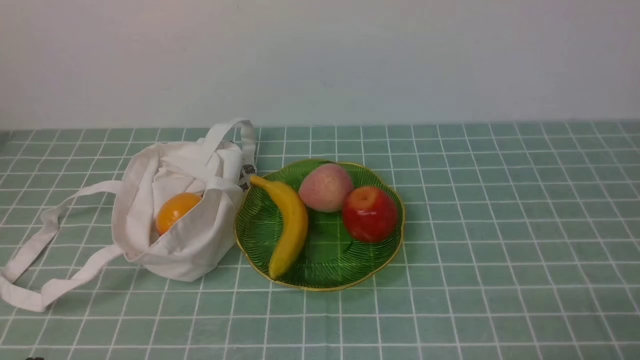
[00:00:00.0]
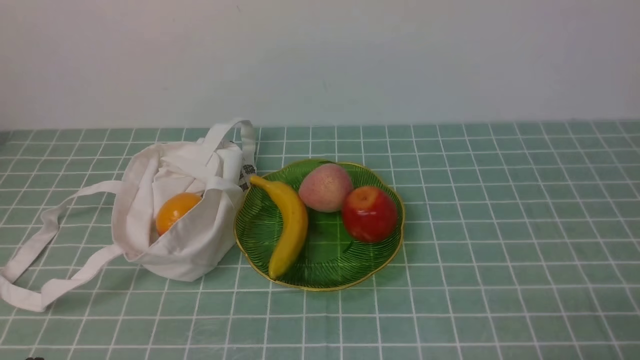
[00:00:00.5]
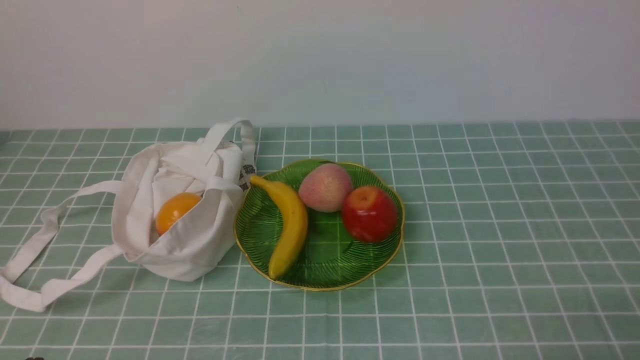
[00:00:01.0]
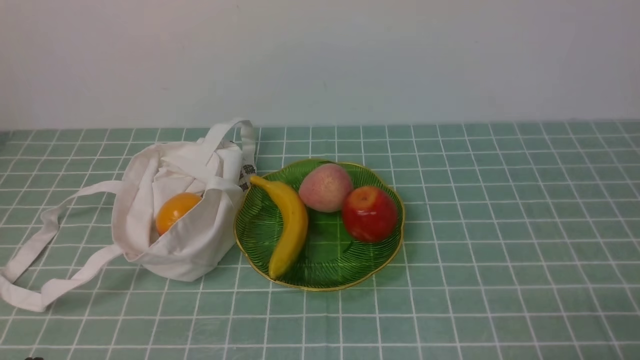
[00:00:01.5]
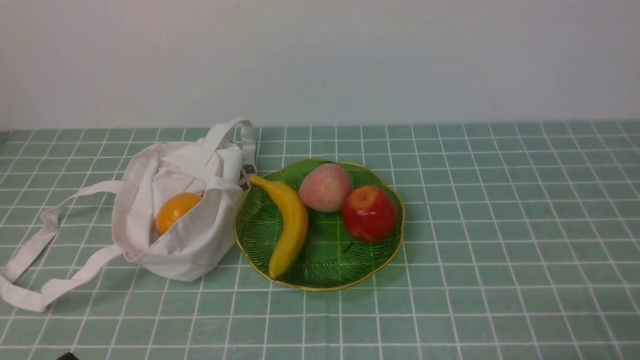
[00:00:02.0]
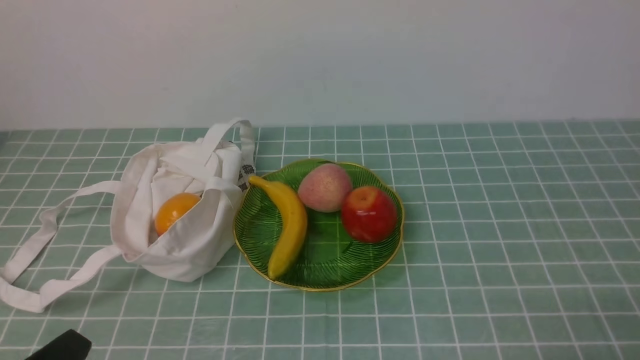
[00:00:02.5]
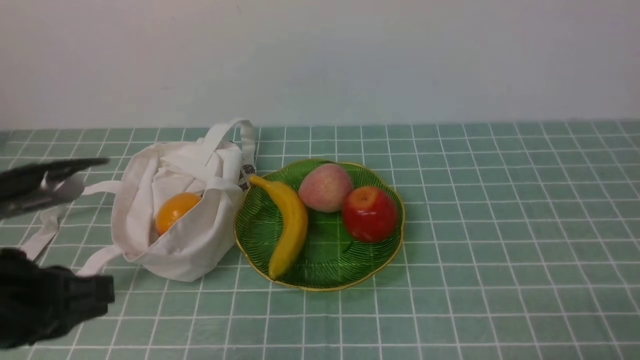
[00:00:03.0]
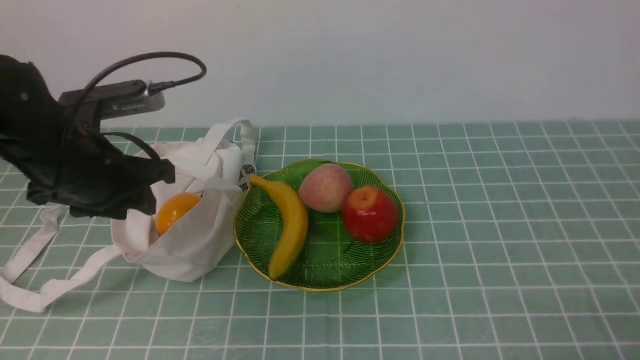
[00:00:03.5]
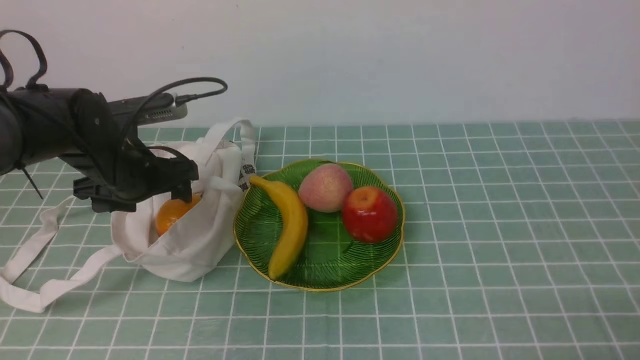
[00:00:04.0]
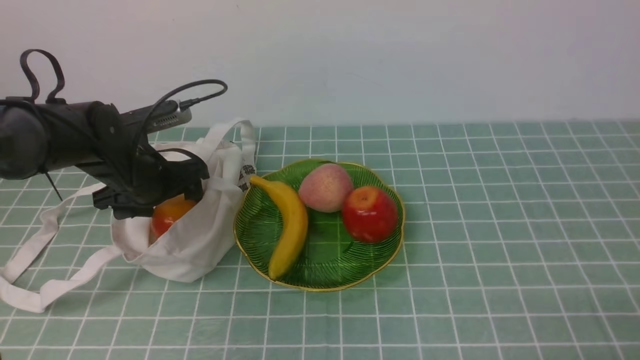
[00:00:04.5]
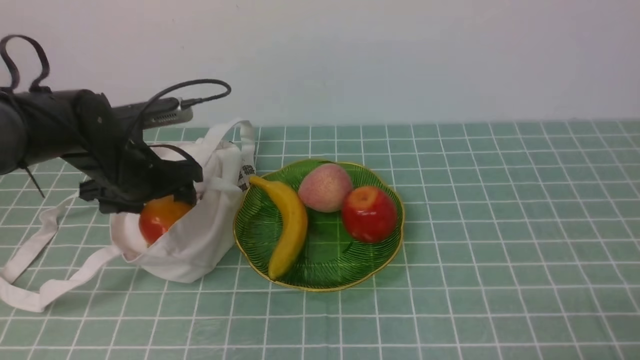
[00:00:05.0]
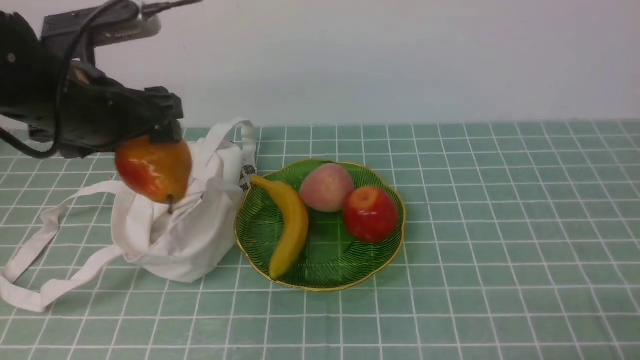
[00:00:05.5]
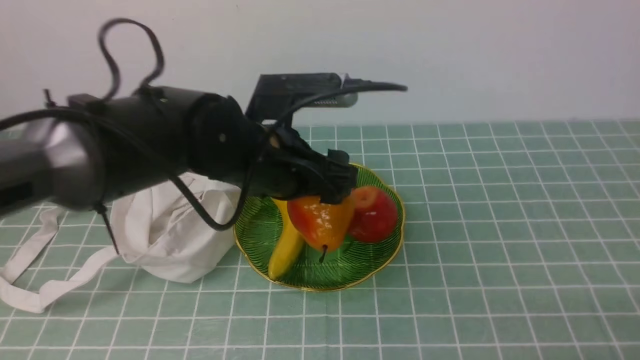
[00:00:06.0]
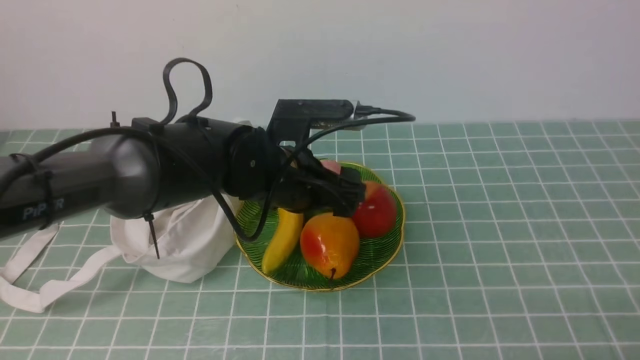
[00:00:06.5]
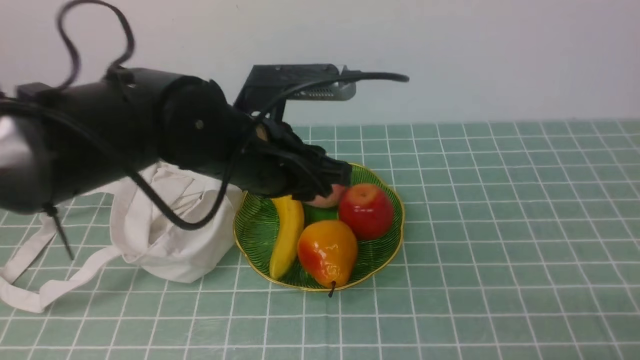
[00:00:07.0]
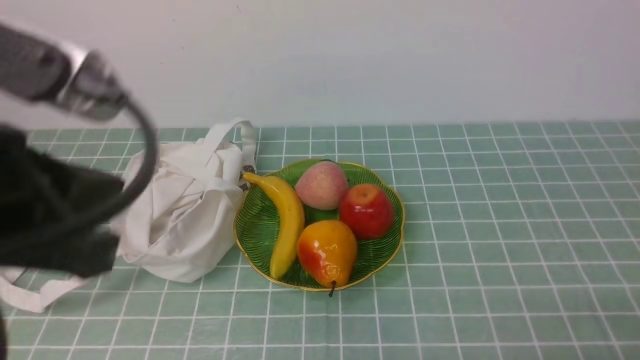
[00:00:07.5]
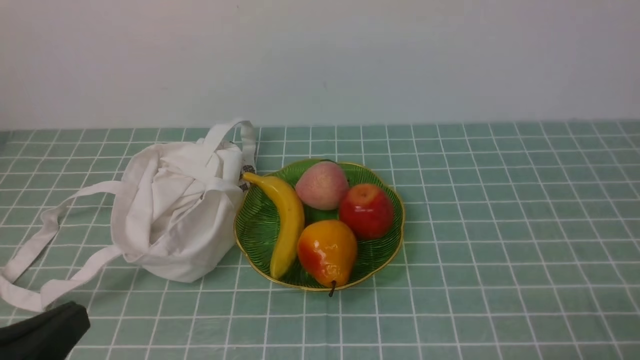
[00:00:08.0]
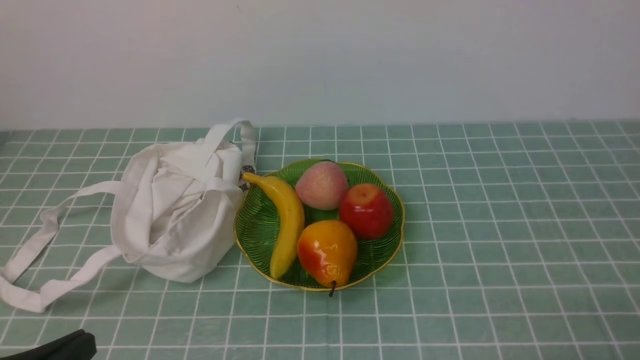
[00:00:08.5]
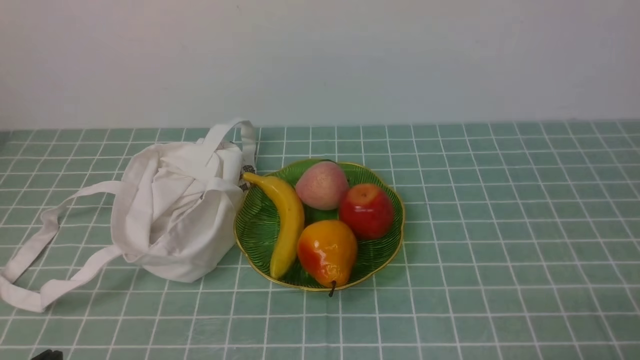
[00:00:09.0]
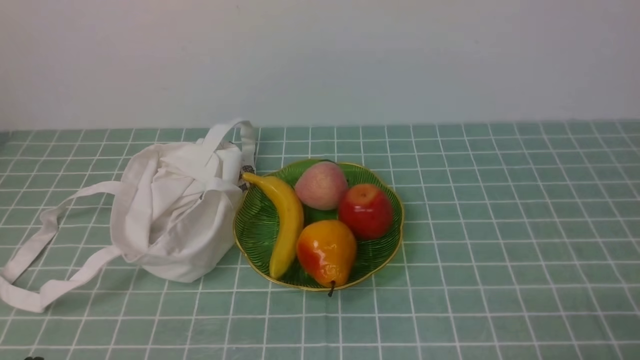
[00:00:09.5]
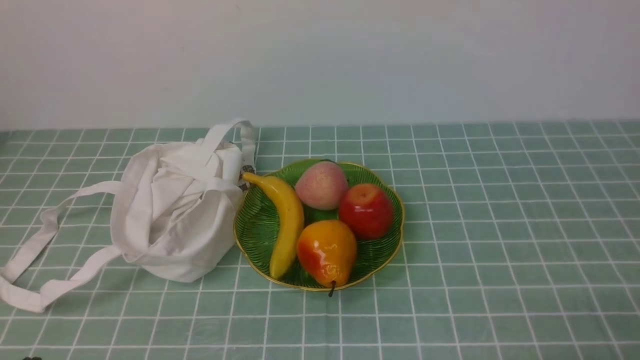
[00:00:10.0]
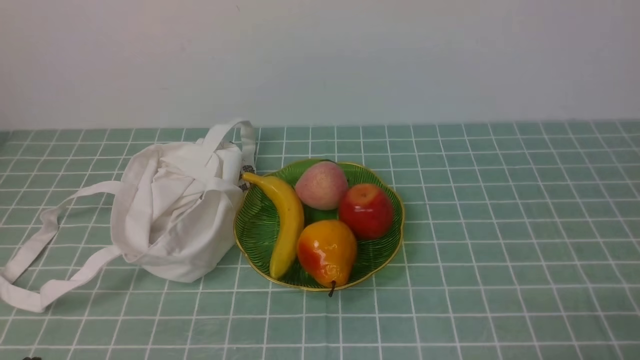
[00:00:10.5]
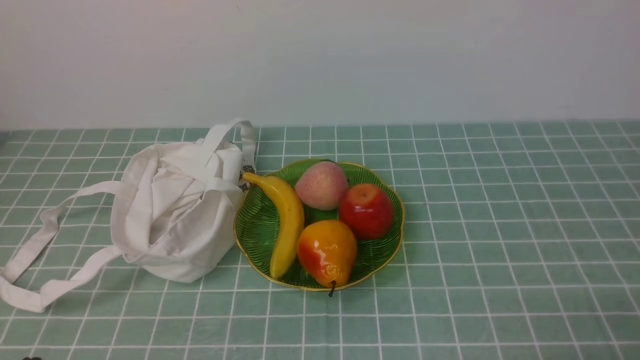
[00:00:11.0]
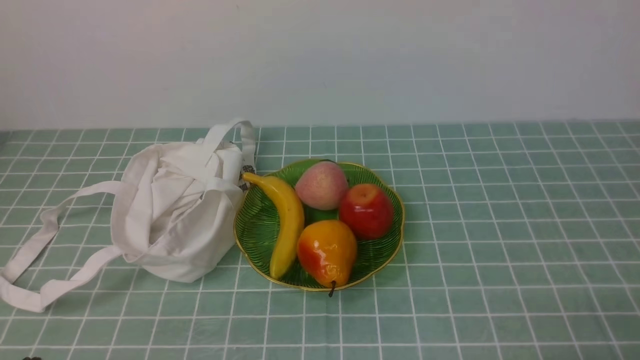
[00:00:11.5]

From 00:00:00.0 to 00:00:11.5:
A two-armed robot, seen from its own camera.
Step, from 00:00:00.0 to 00:00:04.5: use the left arm to grab a pear from the bag.
Step, from 00:00:05.0 to 00:00:06.5: use the left arm to put the pear into the empty plate on the right.
From 00:00:02.0 to 00:00:04.0: The left gripper moves forward, about 35 cm, and opens its fingers.
From 00:00:04.0 to 00:00:06.0: The left gripper is displaced to the right by roughly 15 cm.
From 00:00:06.0 to 00:00:07.5: The left gripper travels backward, to the left and upward by approximately 25 cm, and closes up.
From 00:00:07.5 to 00:00:09.5: The left gripper travels downward by roughly 20 cm.
From 00:00:09.5 to 00:00:11.5: The two grippers keep their place.
